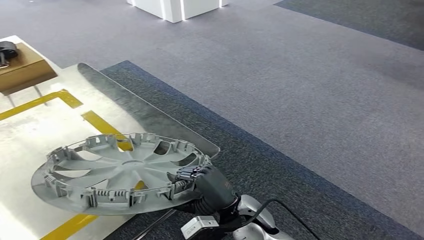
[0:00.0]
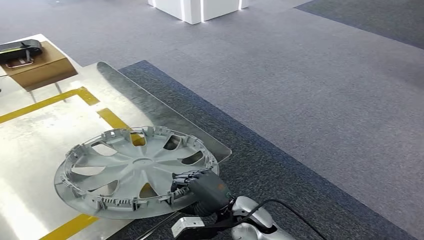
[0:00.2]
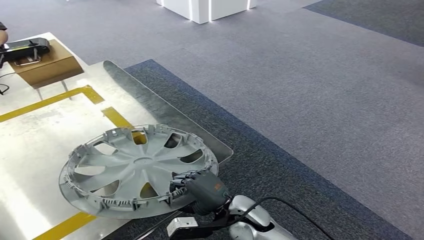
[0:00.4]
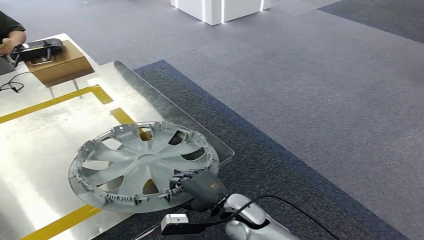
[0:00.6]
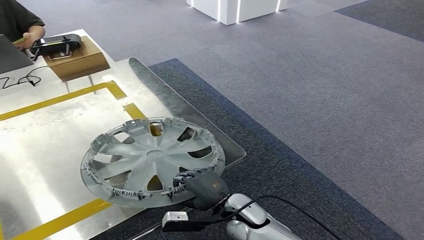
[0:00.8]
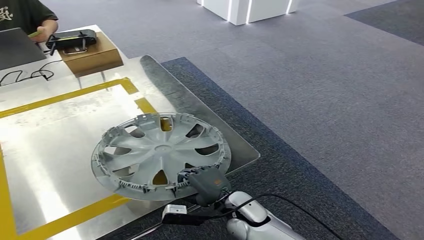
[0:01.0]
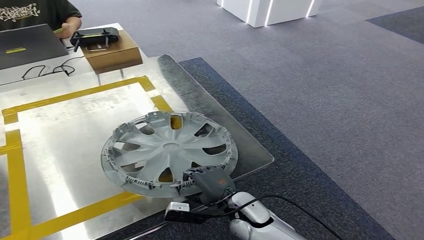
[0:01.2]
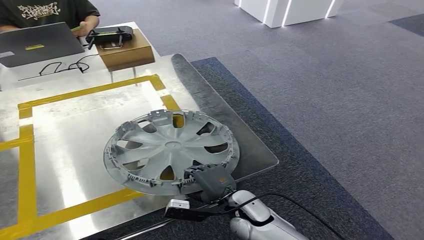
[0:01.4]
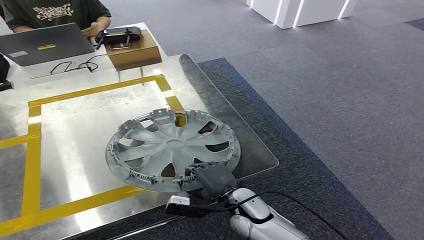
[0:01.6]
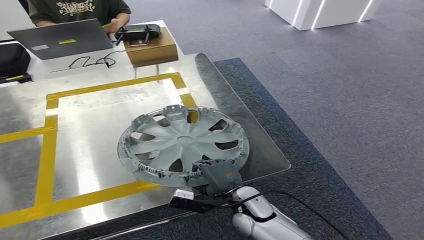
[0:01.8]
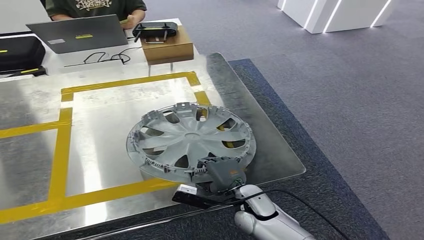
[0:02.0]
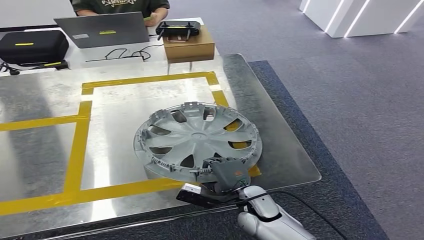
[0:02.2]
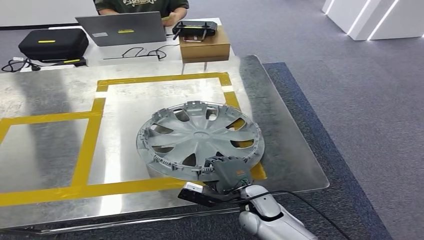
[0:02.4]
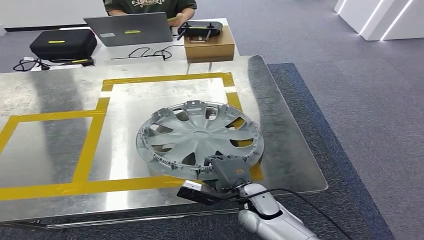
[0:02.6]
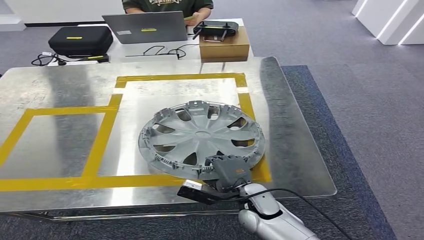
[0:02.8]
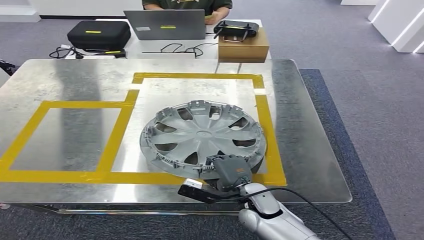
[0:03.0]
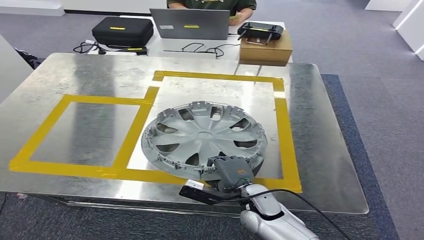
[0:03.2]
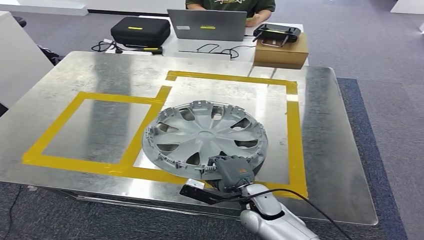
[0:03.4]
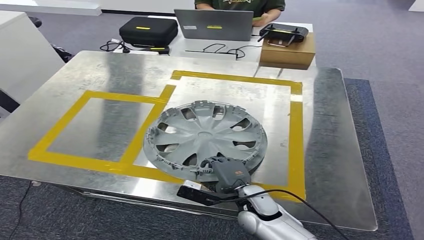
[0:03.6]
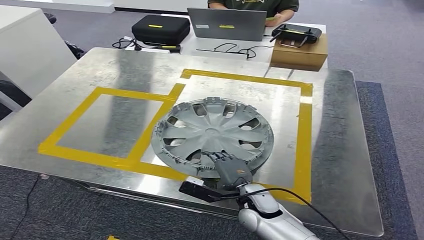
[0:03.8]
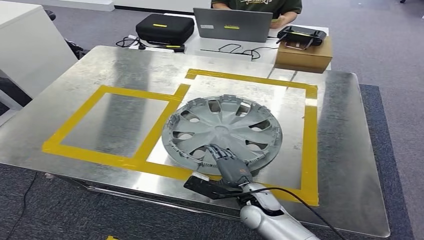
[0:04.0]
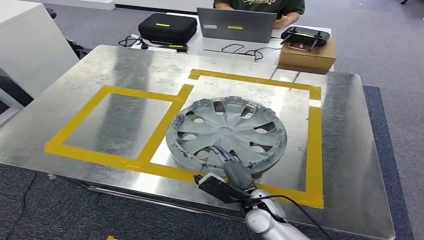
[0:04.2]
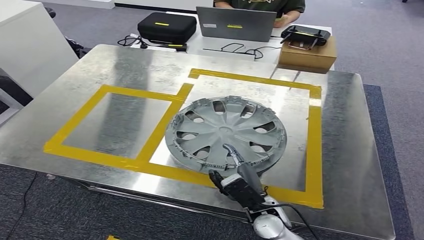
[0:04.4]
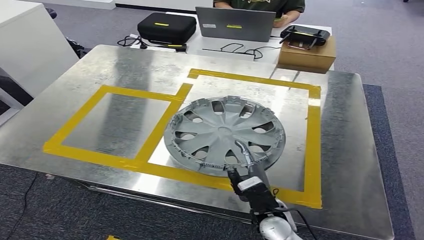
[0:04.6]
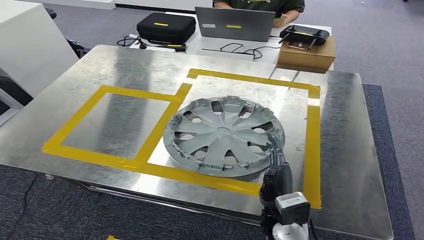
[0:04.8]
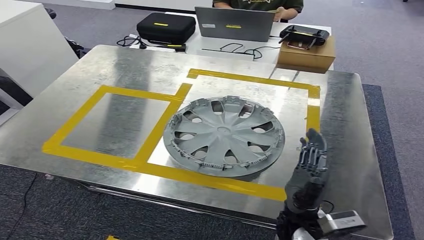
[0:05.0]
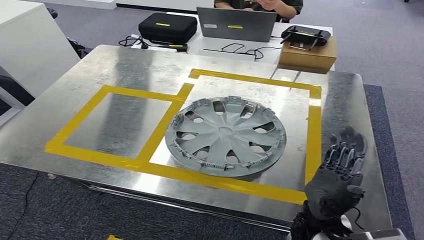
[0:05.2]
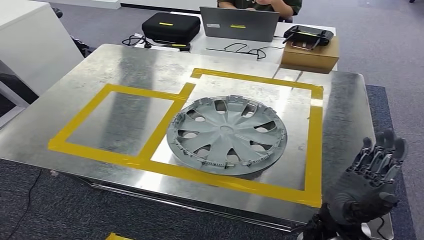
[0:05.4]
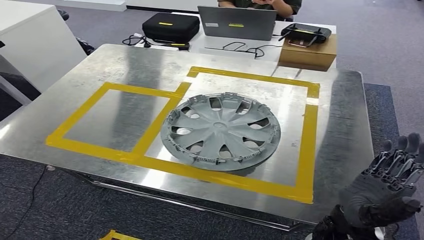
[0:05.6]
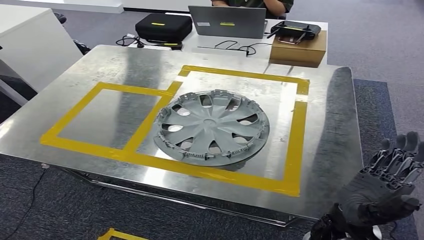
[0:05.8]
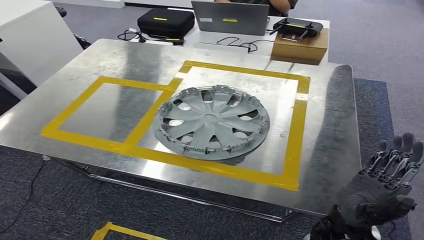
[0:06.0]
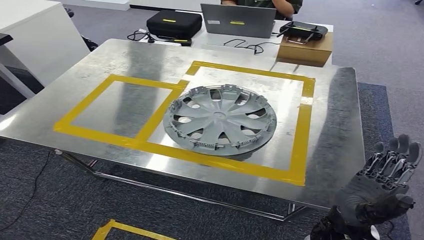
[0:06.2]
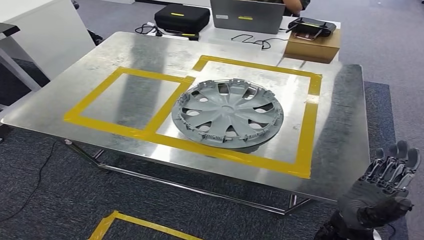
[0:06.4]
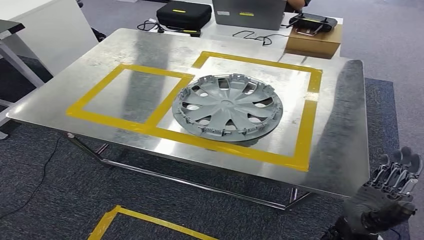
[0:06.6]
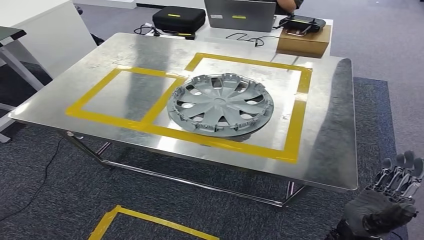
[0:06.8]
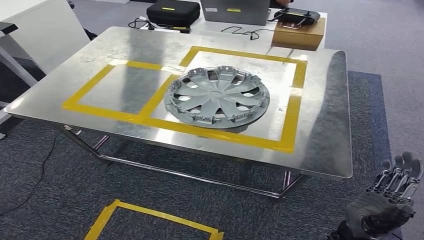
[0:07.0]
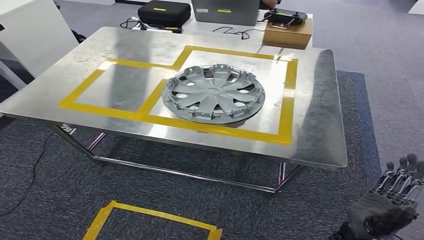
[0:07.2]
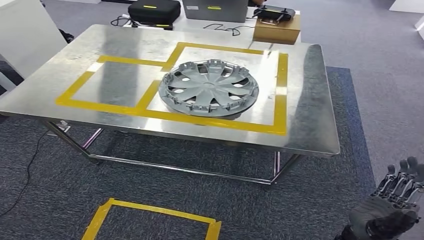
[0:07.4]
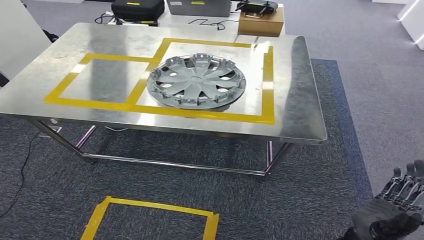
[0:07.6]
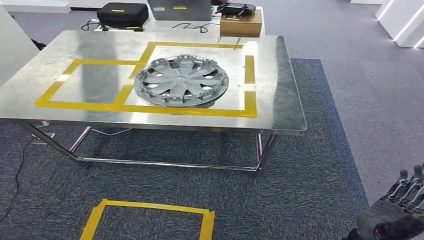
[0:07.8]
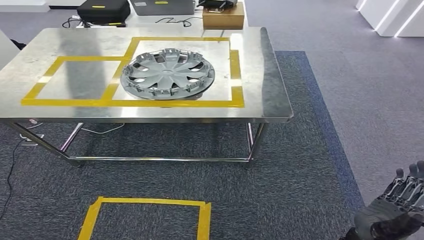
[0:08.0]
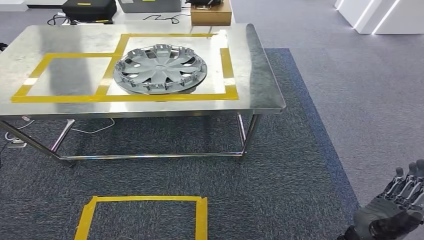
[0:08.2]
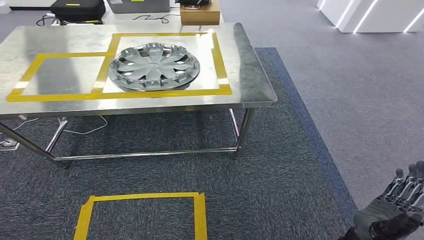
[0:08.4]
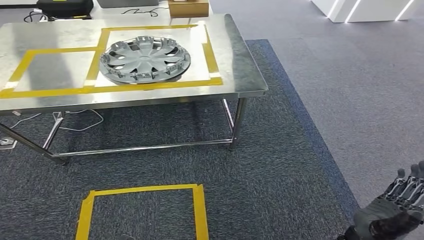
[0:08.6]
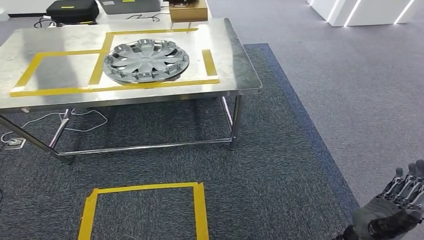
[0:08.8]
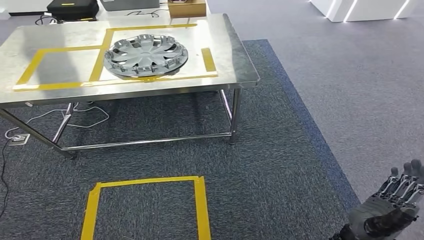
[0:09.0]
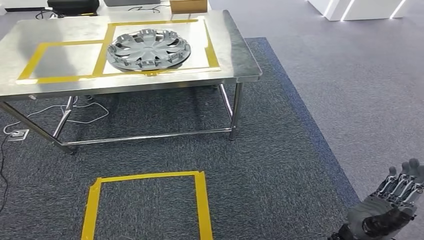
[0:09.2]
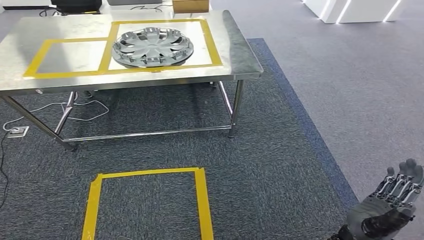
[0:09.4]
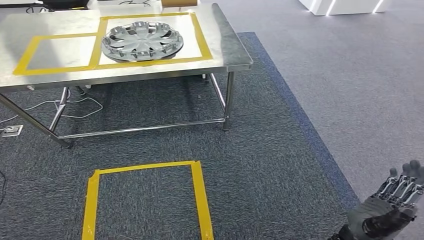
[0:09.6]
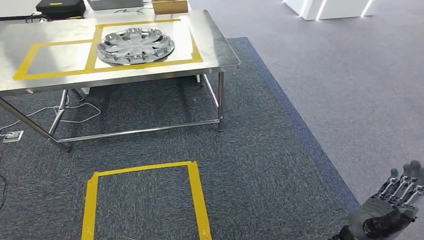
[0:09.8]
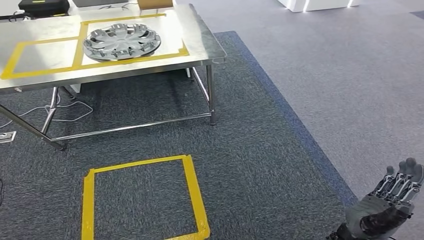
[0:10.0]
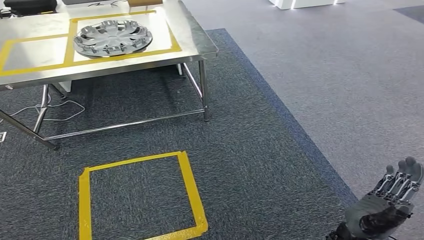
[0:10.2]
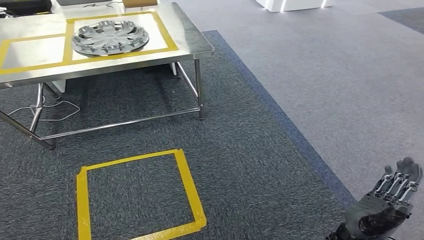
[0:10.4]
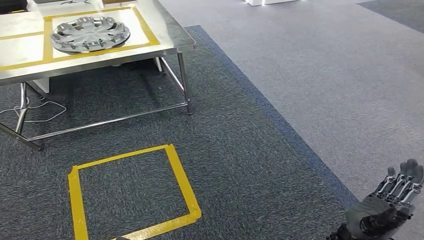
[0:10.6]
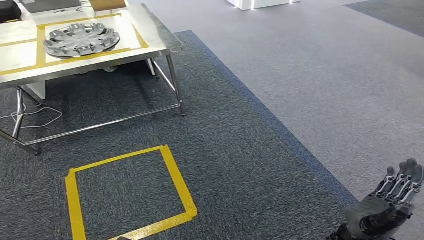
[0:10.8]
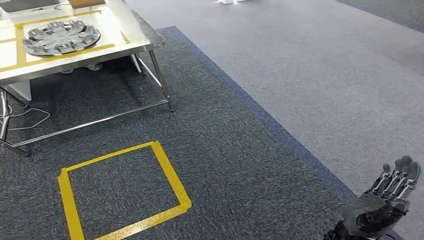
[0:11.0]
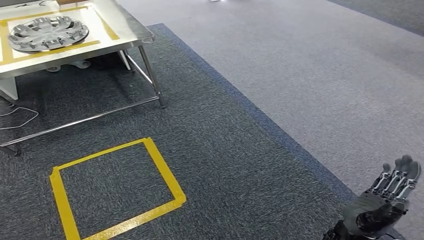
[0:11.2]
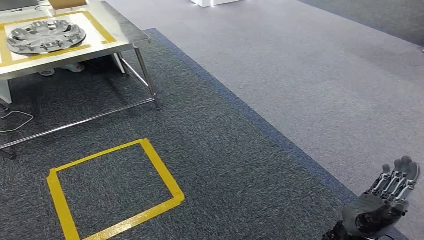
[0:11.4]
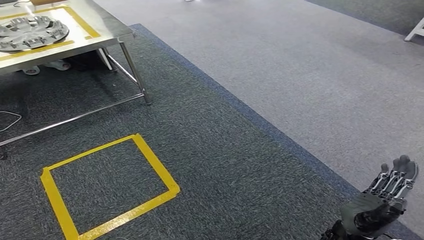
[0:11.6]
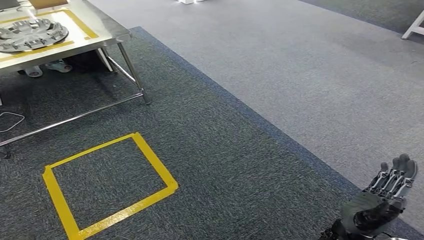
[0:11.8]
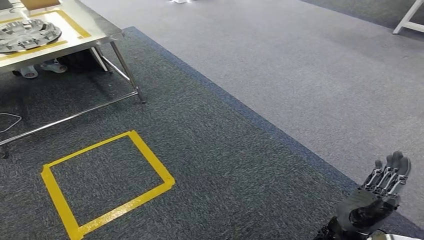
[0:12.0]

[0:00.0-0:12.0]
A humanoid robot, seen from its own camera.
Step, 0:00.0 to 0:05.4: Insert the small parts into the corresponding holes on the workbench.

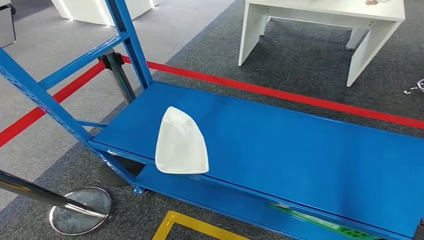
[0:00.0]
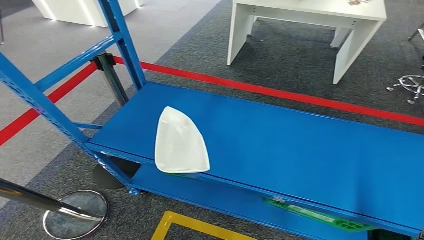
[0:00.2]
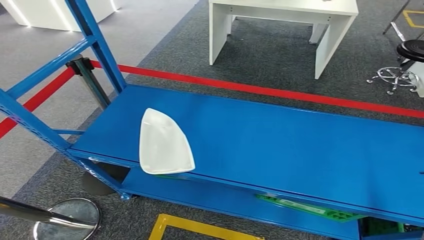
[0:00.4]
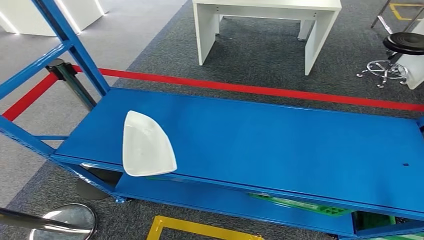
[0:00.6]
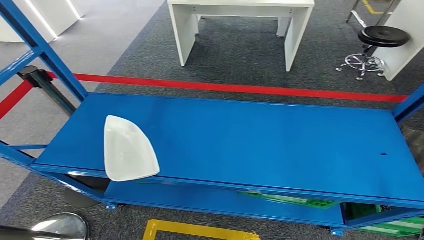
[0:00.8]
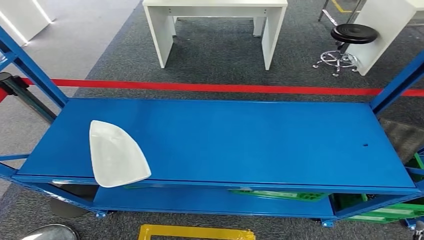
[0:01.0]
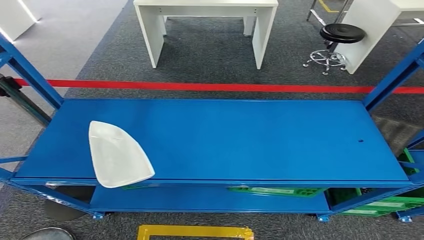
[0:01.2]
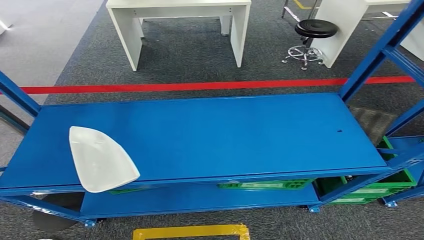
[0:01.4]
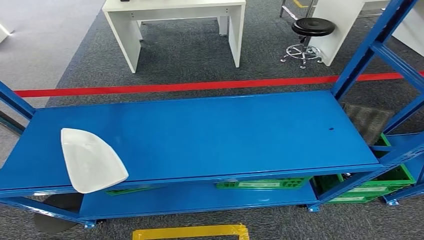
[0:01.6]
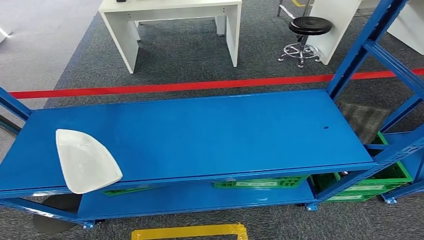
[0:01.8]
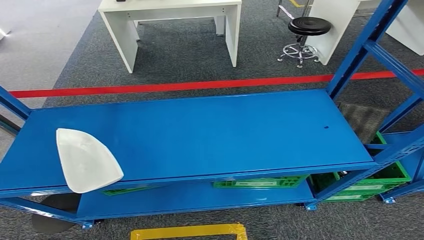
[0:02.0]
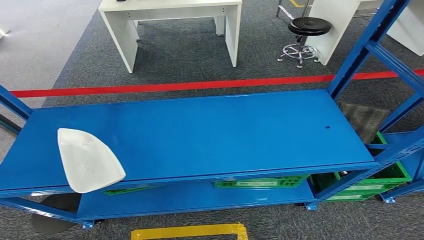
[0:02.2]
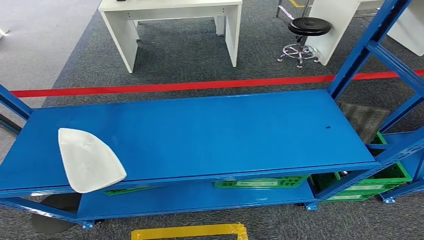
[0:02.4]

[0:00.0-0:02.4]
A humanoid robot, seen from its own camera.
Step, 0:00.0 to 0:02.4: Move to the initial position at the workbench.
